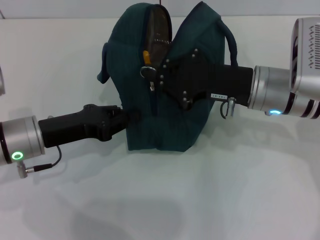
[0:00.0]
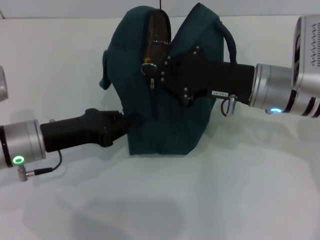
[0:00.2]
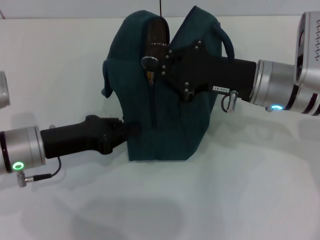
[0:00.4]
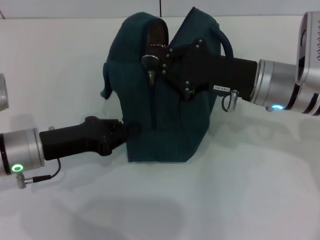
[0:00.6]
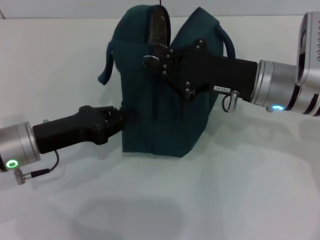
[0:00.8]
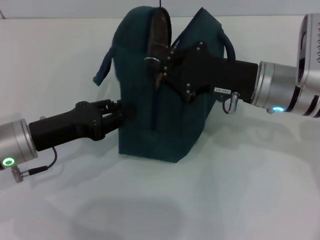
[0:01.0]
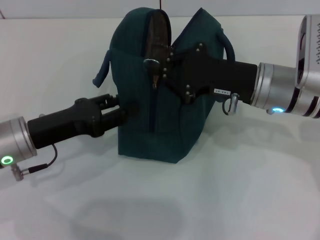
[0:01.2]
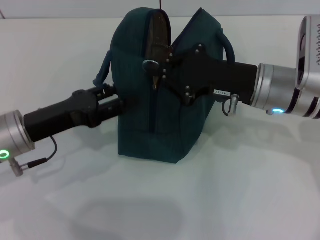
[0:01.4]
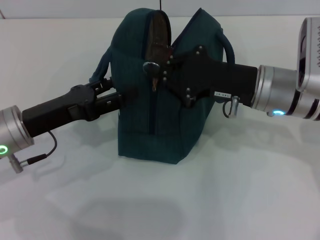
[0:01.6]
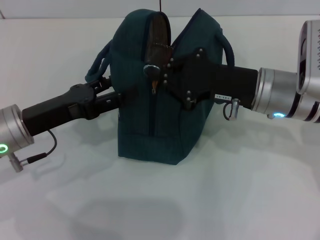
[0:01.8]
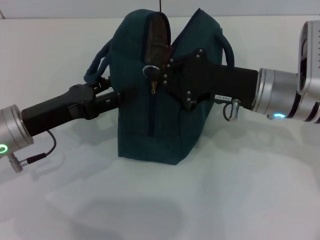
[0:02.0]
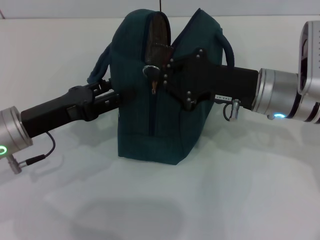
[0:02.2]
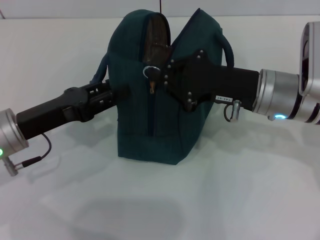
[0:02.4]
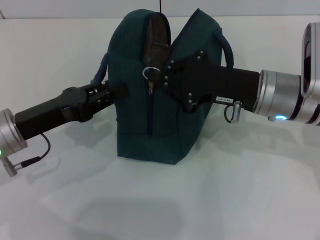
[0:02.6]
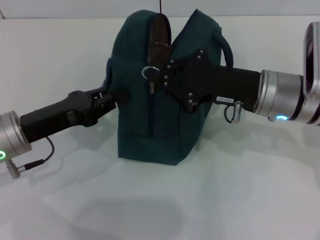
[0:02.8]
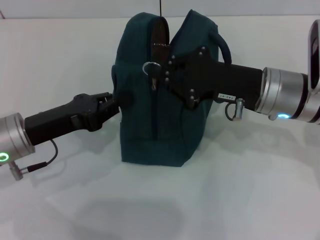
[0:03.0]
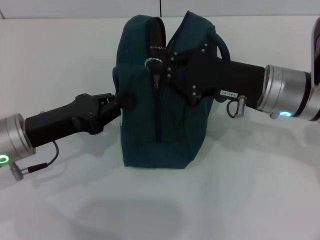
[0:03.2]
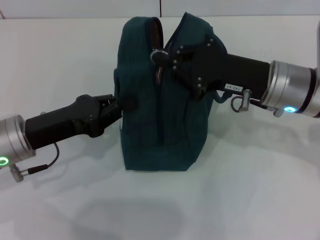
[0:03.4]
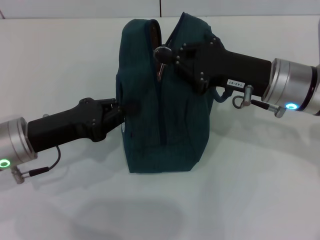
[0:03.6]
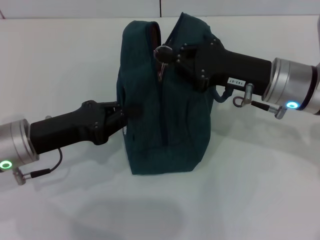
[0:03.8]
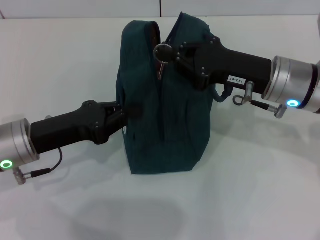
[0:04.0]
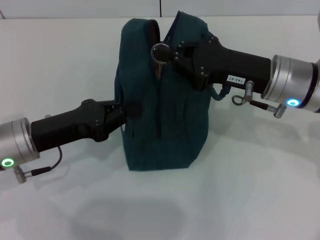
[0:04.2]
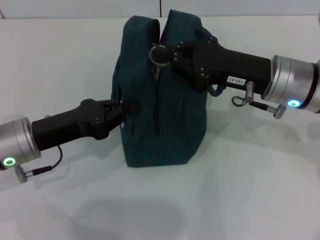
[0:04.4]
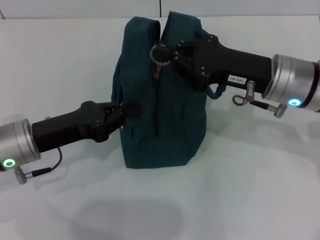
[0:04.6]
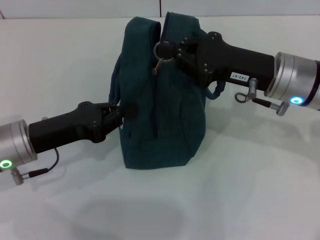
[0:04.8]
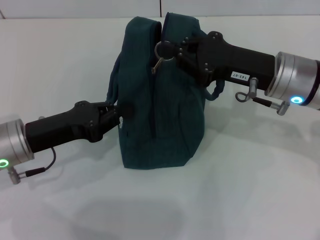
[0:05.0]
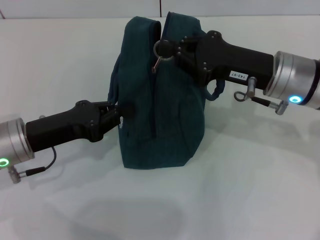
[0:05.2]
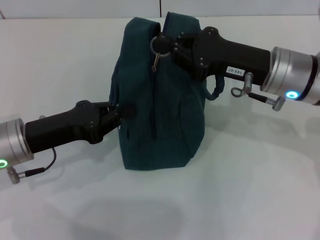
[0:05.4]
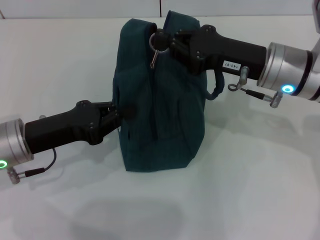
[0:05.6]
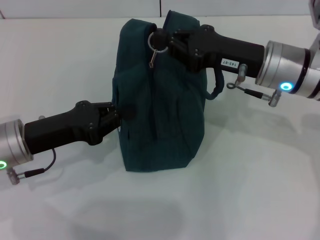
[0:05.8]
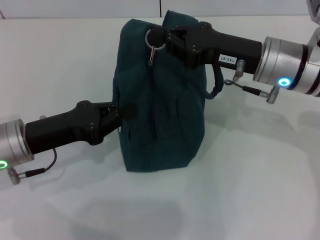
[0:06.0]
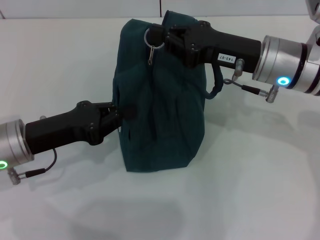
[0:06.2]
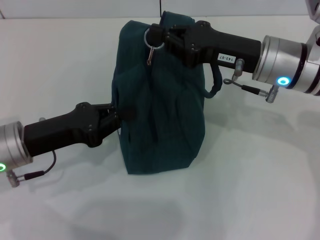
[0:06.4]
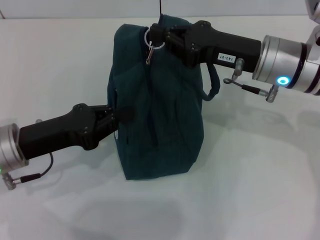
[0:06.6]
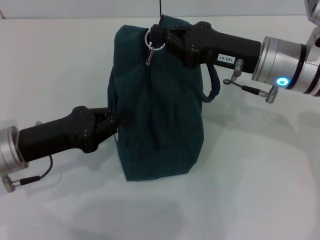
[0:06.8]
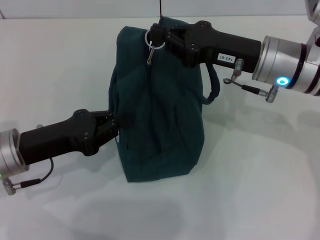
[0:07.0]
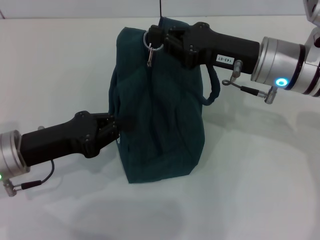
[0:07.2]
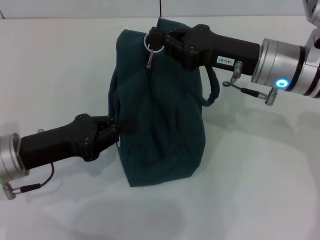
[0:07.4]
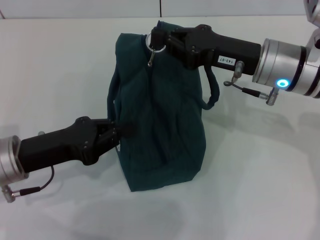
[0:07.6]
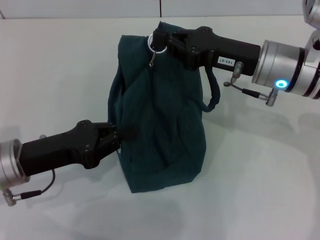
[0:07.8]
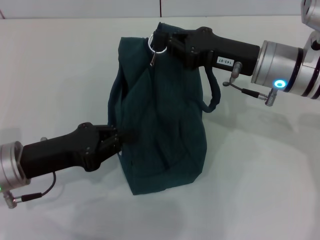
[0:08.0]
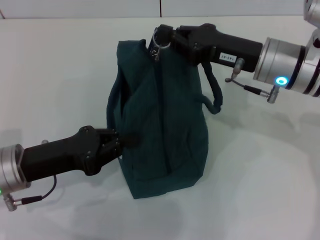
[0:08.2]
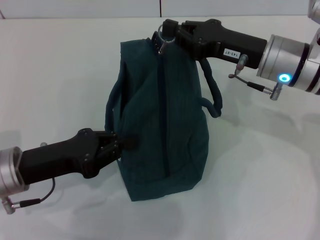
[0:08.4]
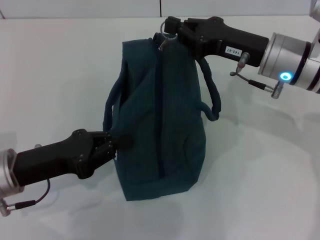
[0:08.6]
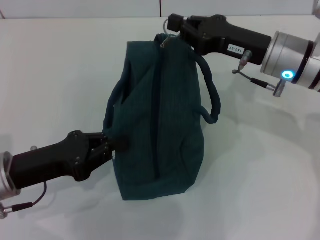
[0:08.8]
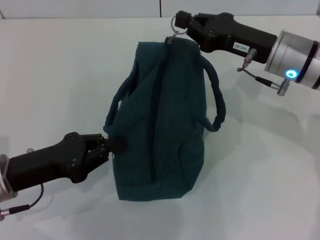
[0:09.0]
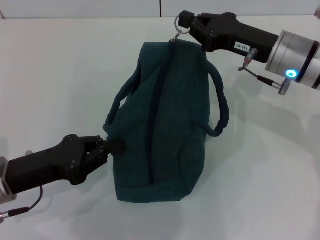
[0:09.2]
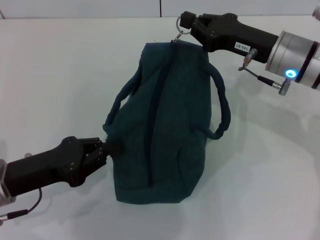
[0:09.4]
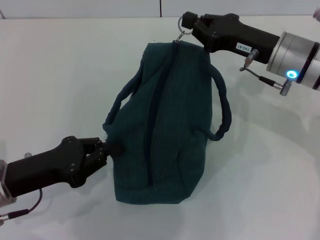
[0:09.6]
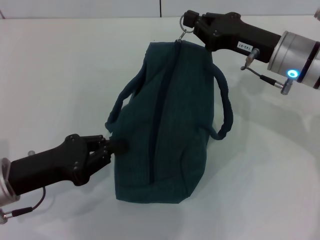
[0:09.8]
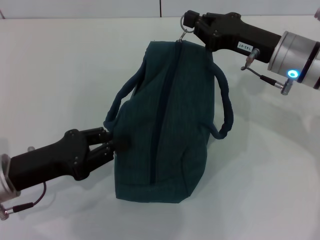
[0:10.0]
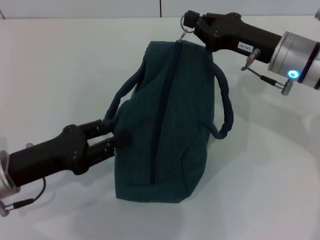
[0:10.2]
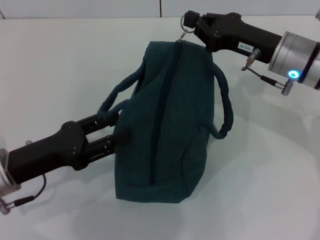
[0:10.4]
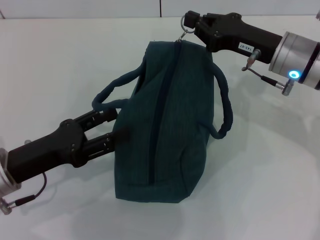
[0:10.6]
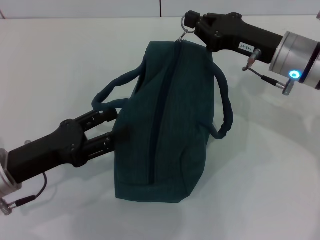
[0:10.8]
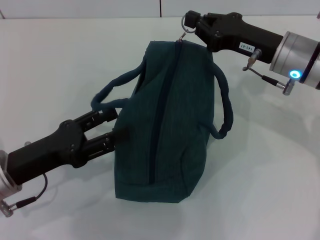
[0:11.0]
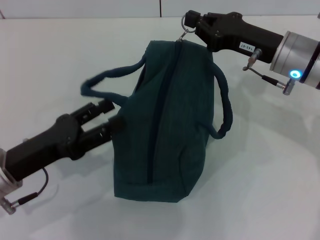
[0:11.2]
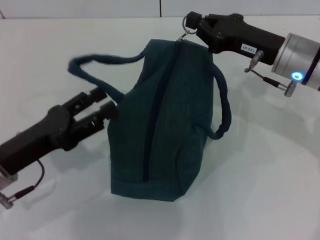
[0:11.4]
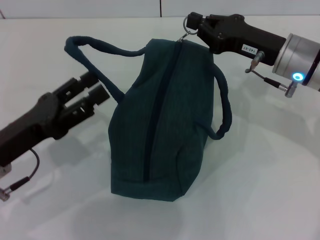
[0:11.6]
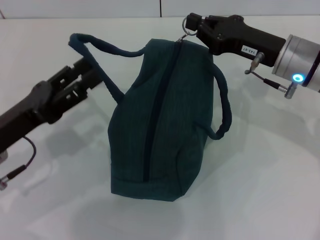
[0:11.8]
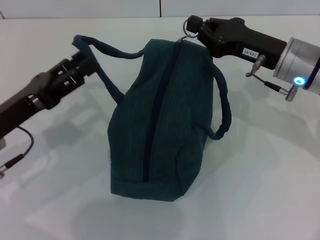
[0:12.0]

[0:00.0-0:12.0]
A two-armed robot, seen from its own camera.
0:00.0 to 0:01.6: The left gripper opens its fingers.
0:01.6 to 0:03.0: The left gripper closes its fingers.
0:03.0 to 0:04.4: The grippers move only a little.
0:04.4 to 0:07.6: The grippers stay close to where they were, moving slightly.
0:09.0 to 0:10.4: The left gripper opens its fingers.
0:10.4 to 0:12.0: The left gripper opens.

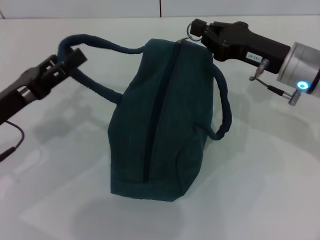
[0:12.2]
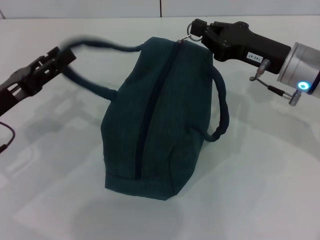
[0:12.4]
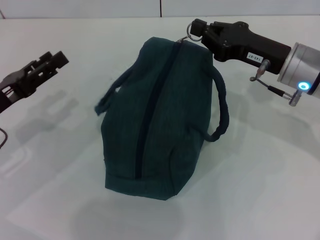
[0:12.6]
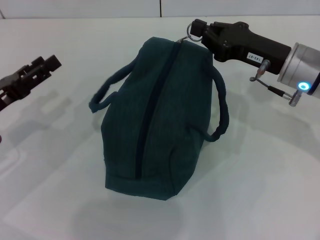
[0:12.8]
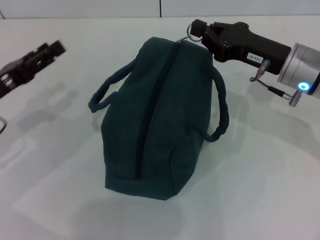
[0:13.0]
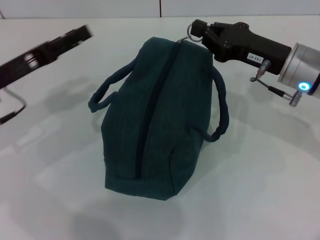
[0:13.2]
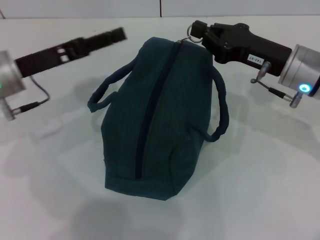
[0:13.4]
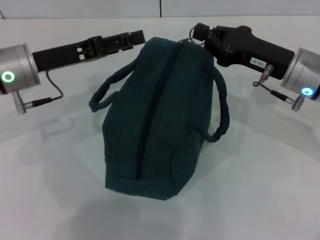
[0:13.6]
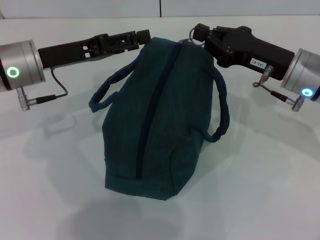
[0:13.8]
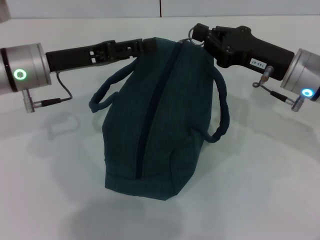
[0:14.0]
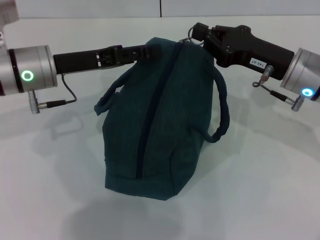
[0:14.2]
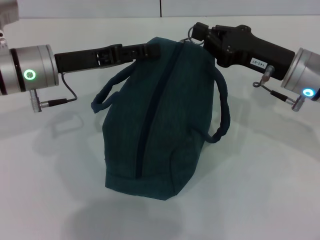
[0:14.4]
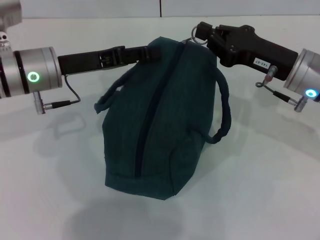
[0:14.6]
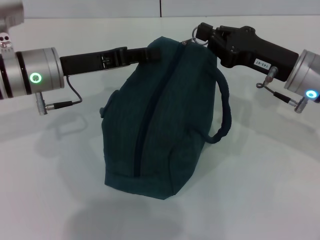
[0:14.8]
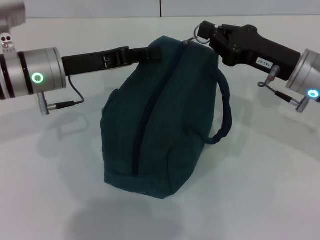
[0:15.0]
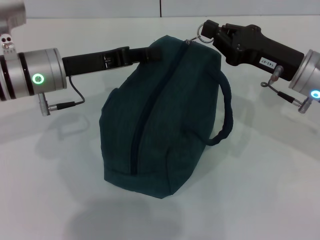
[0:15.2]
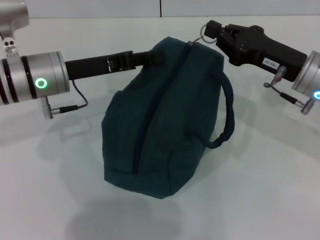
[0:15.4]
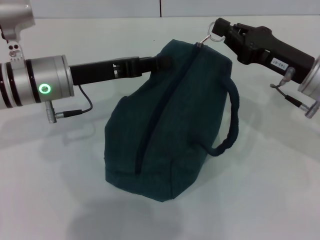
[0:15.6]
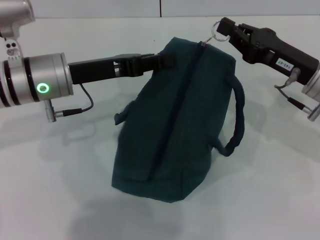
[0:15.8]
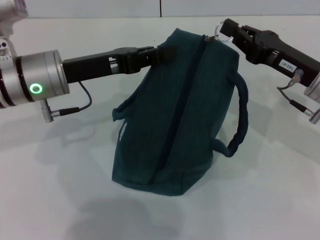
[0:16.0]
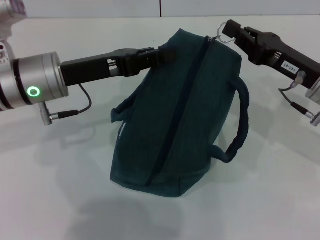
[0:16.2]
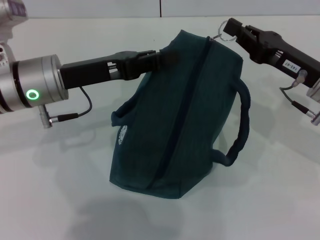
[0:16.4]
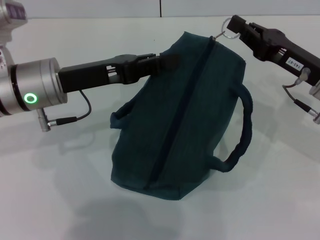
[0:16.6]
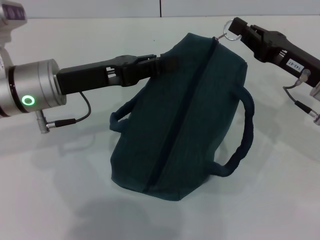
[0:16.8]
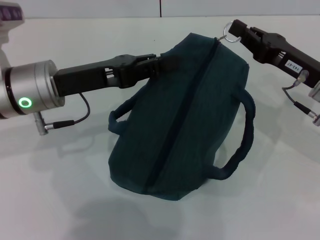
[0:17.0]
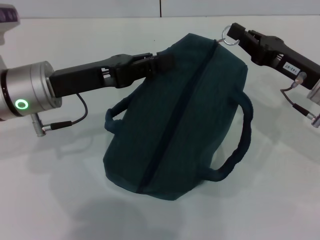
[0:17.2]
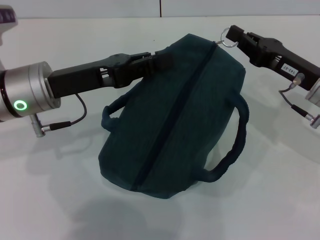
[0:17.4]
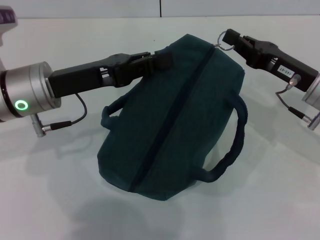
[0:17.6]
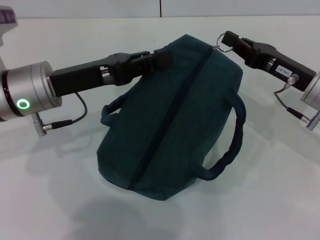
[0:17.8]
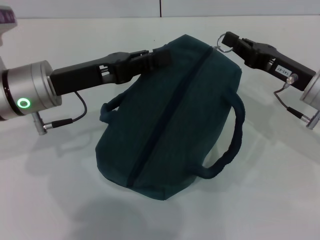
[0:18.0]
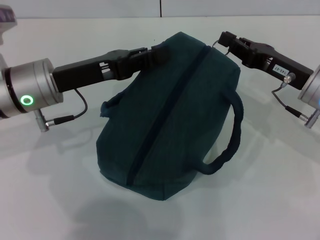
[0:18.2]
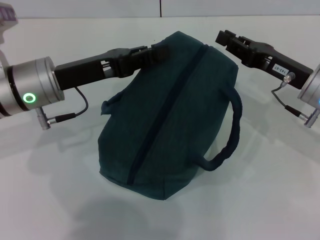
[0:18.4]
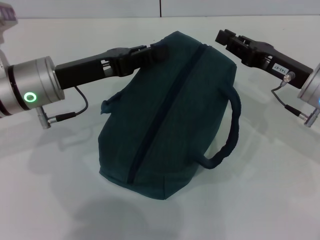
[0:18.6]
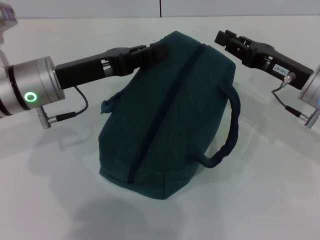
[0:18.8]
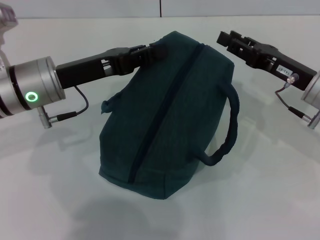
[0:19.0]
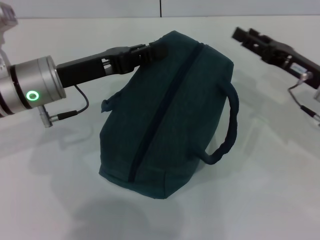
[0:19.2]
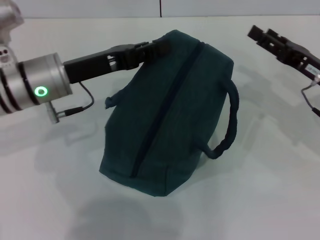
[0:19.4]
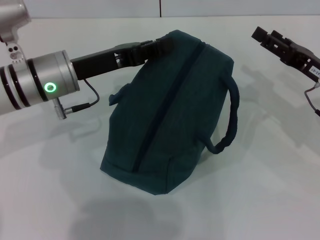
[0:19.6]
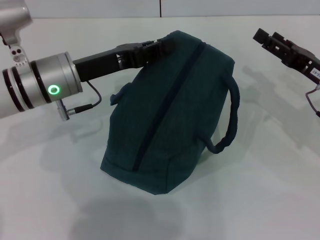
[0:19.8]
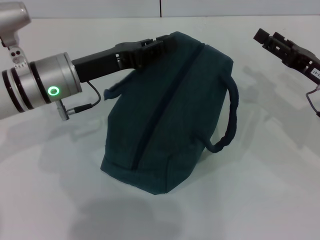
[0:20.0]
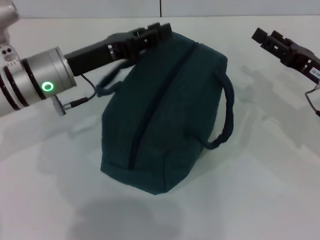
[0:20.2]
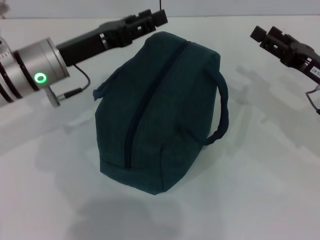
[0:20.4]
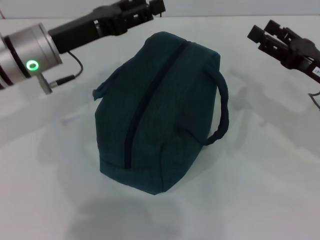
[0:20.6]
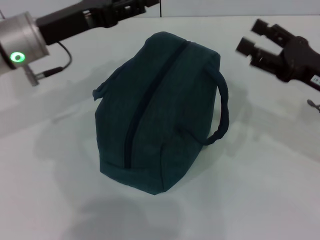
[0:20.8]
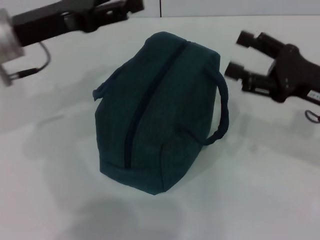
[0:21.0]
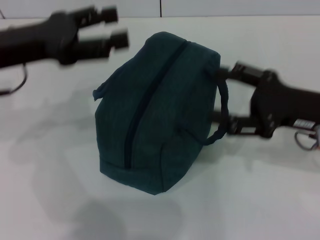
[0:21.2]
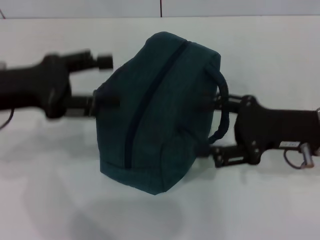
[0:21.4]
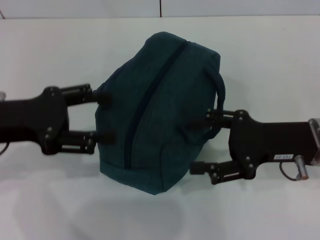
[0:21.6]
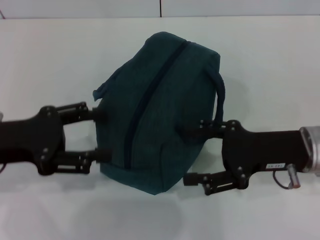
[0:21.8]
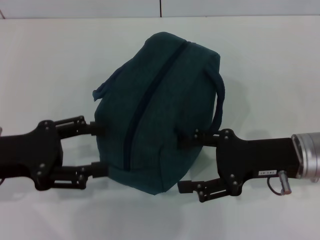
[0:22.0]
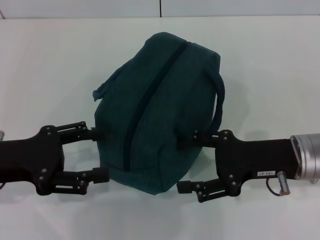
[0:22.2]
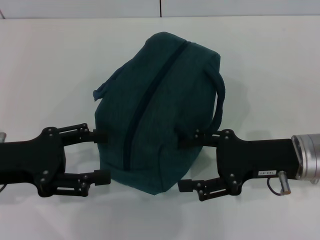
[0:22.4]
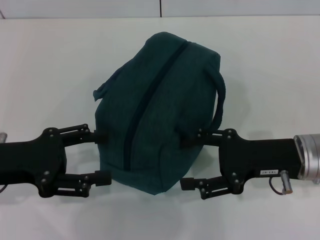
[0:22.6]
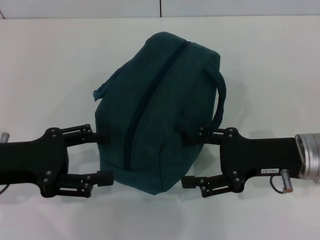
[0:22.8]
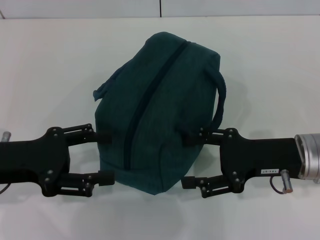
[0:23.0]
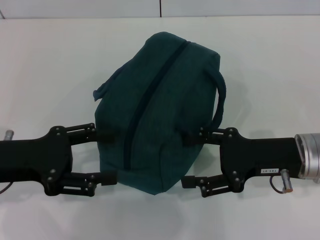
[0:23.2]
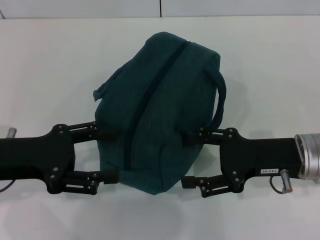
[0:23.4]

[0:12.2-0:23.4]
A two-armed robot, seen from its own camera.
Step, 0:12.2 to 0:18.8: Zip up the lunch bag with your right hand.
Step, 0:19.0 to 0:20.2: Hold the lunch bag with your left hand.
0:12.2 to 0:13.8: The left gripper moves forward and to the right, about 10 cm.
0:13.8 to 0:15.4: The left gripper closes its fingers.
0:18.6 to 0:20.2: The right gripper moves some 5 cm, and opens up.
0:20.2 to 0:21.8: The right gripper travels to the left and backward by roughly 10 cm. Meanwhile the left gripper goes roughly 15 cm backward and to the left, and opens its fingers.
0:21.8 to 0:23.4: The grippers stay close to where they were, moving slightly.
